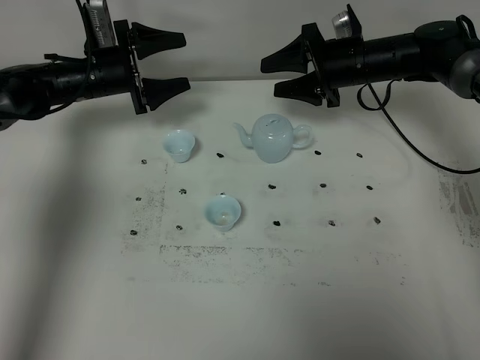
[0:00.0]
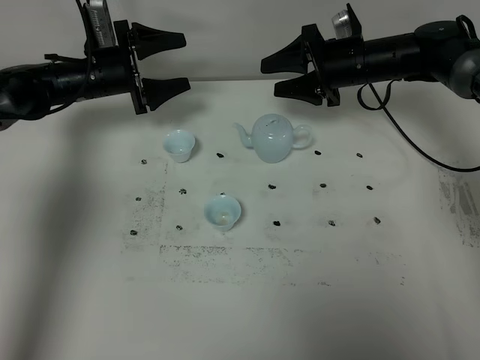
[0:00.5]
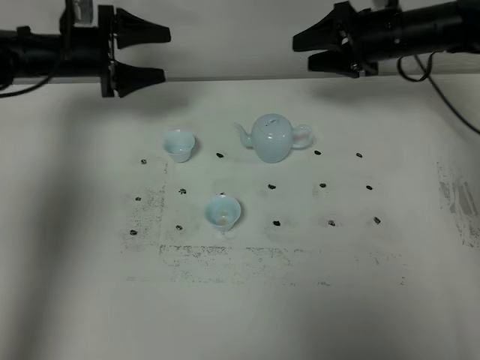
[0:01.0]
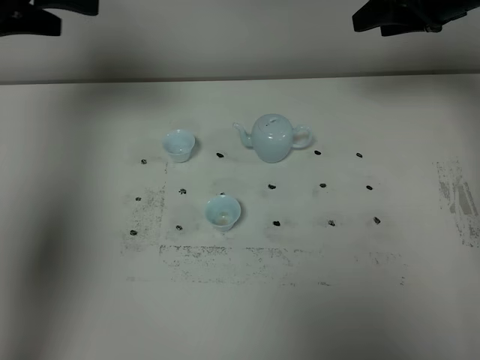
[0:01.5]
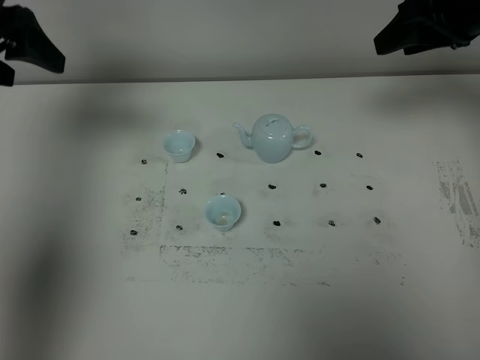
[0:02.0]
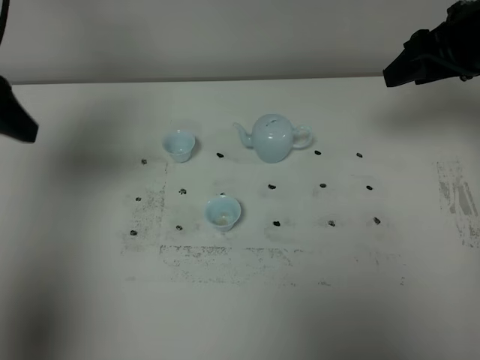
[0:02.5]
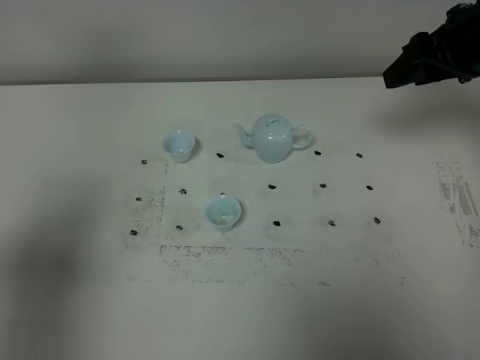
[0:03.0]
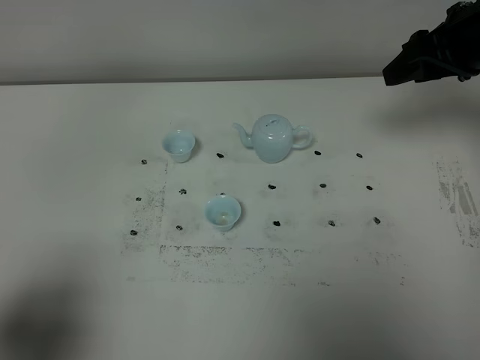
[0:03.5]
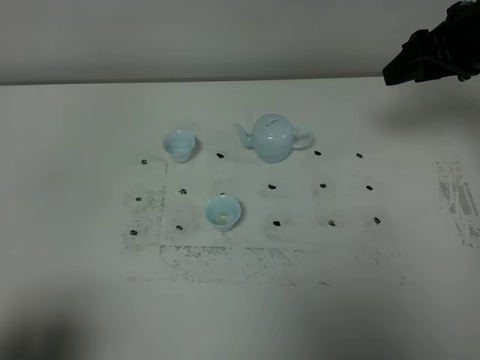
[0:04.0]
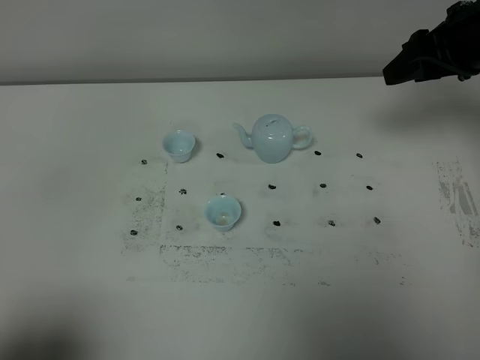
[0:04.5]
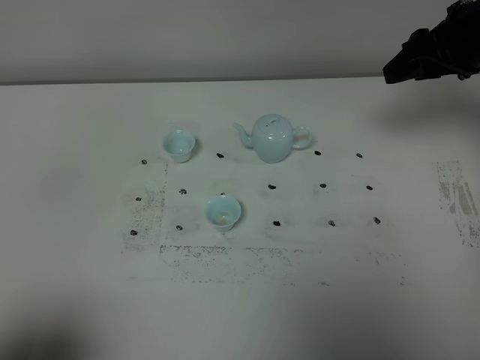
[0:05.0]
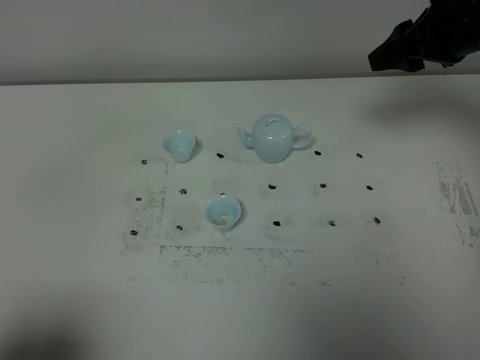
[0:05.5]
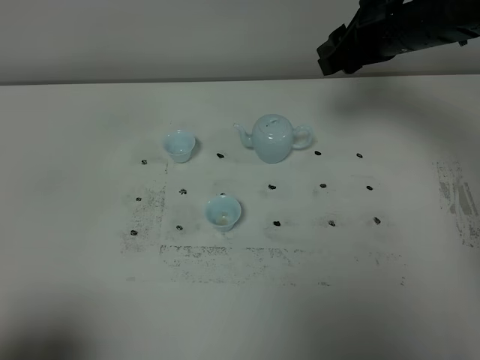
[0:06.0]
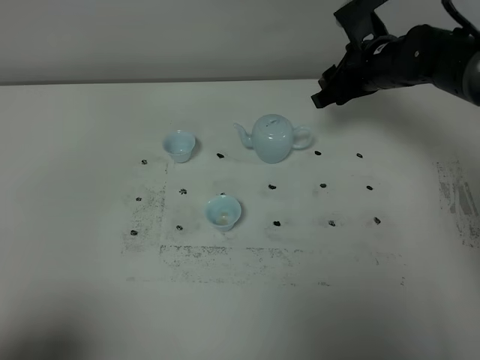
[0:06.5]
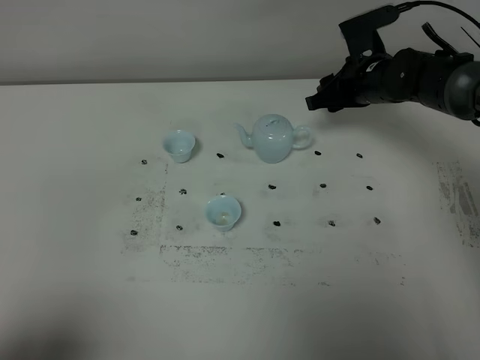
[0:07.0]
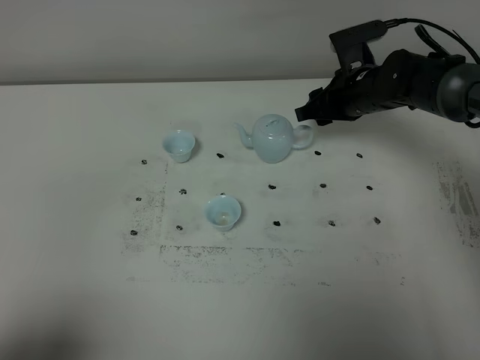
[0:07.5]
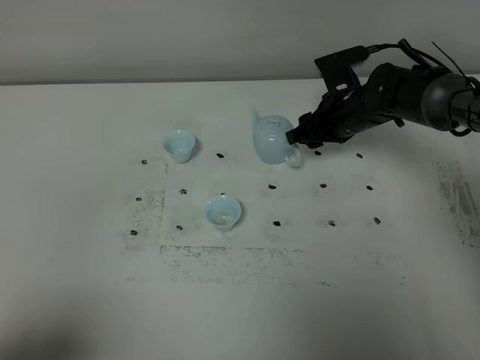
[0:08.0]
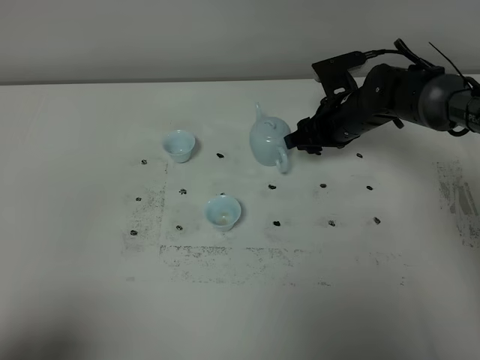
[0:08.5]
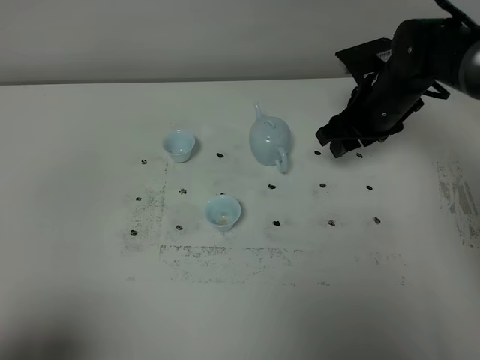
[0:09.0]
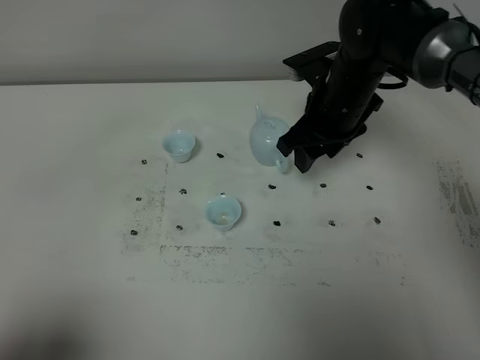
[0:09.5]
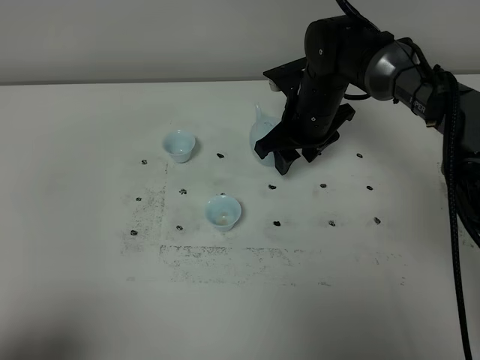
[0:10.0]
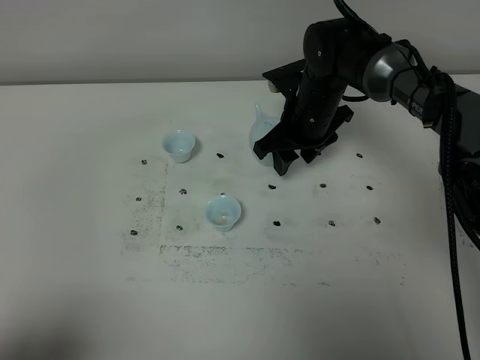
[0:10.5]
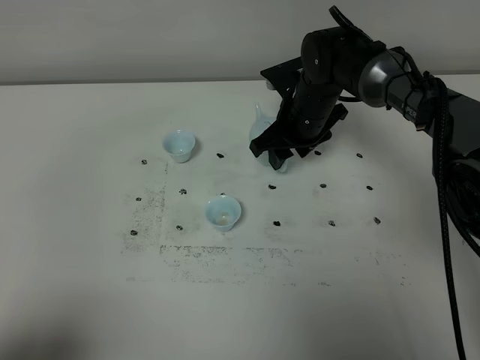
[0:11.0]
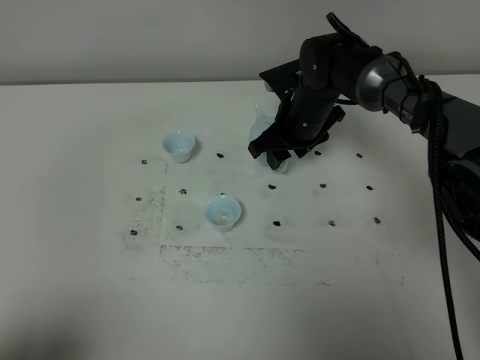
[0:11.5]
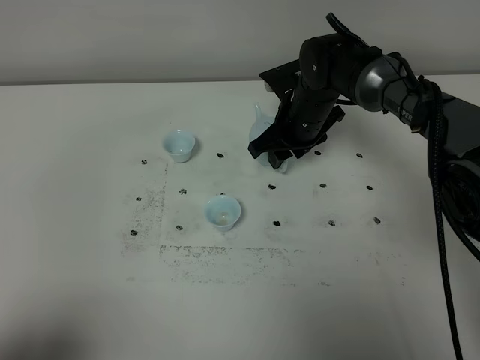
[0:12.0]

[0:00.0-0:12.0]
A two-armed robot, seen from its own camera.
Task of the whole recording: grasp the blue porcelain teapot and pour the tea into the two blue porcelain teacups one by one, put the blue porcelain teapot back in its original place.
0:00.0 to 0:02.0: The left gripper shifts some 25 cm upward and backward. Meanwhile the right gripper travels upward, backward and to the right by roughly 20 cm.
0:02.0 to 0:04.0: The left gripper moves backward, approximately 40 cm, and closes its fingers.
0:04.0 to 0:06.0: The right gripper moves to the left, some 10 cm.
0:06.0 to 0:08.0: The right gripper goes some 15 cm downward.
0:08.0 to 0:10.0: The right gripper goes about 5 cm to the left.
0:10.0 to 0:12.0: There are only small adjustments of the grippers.

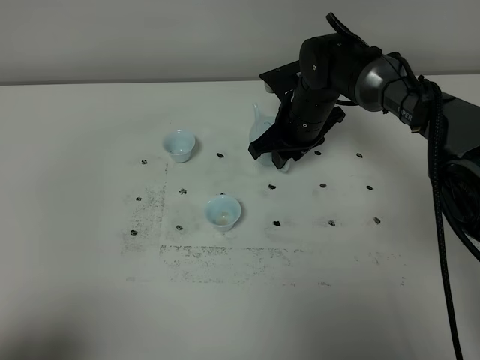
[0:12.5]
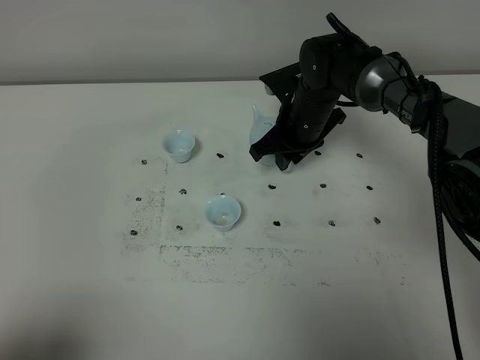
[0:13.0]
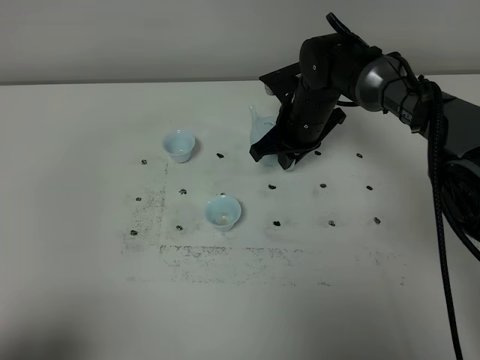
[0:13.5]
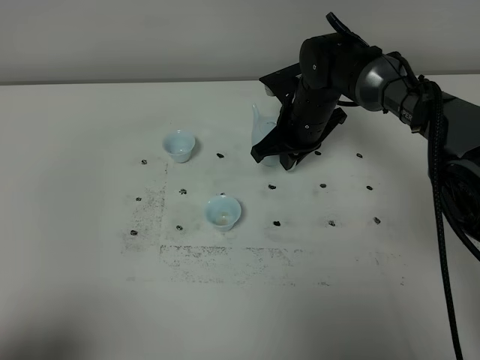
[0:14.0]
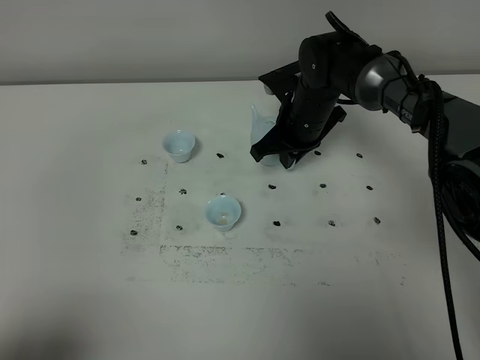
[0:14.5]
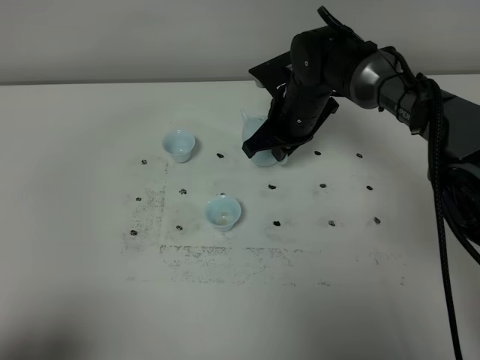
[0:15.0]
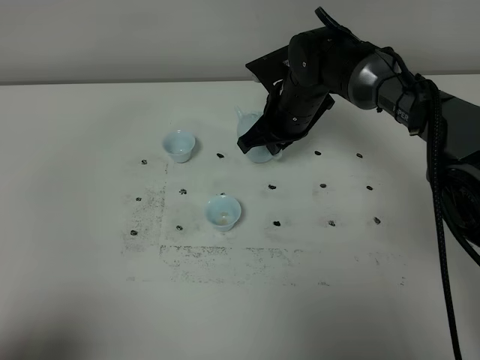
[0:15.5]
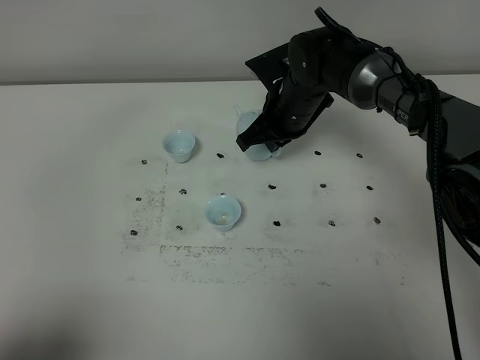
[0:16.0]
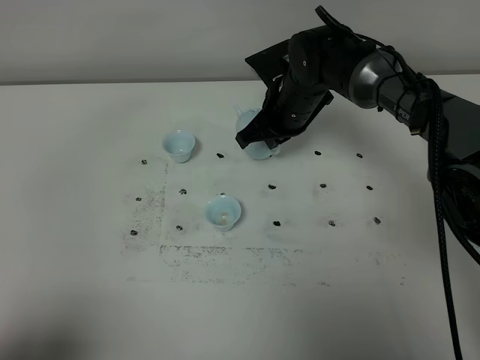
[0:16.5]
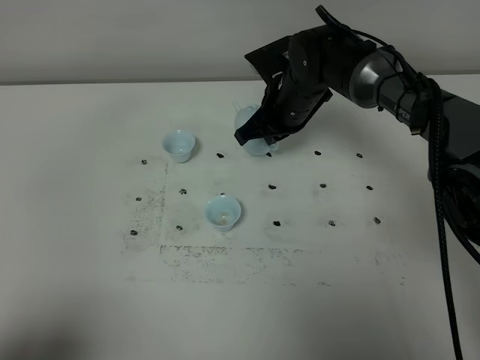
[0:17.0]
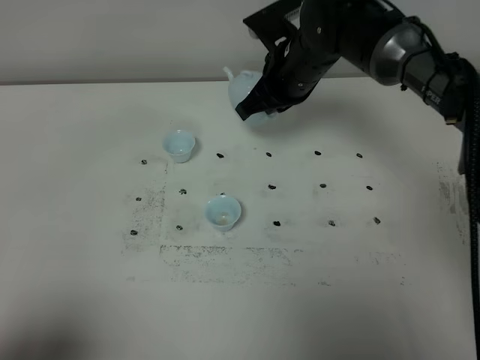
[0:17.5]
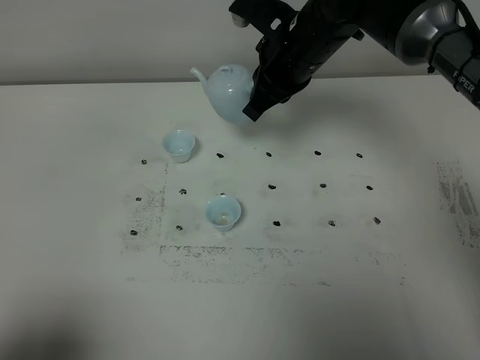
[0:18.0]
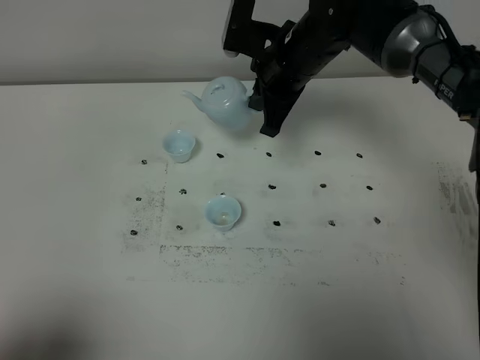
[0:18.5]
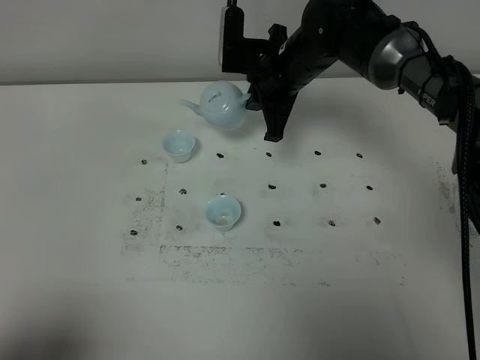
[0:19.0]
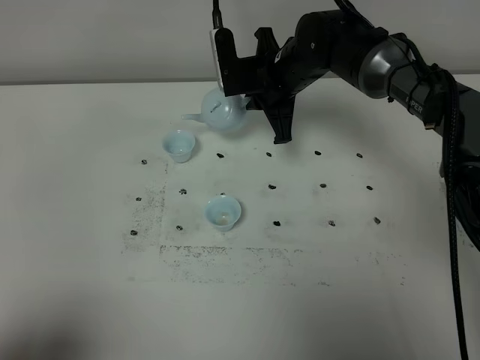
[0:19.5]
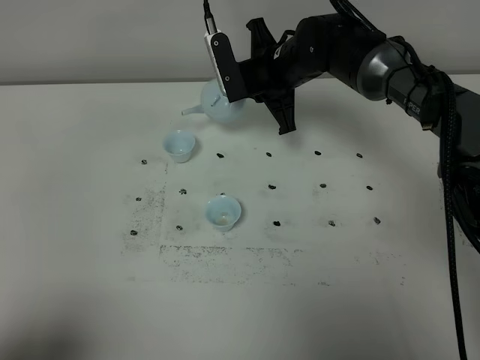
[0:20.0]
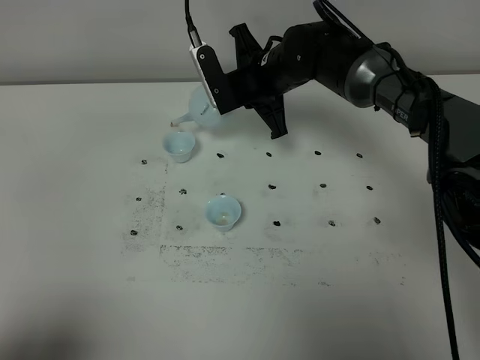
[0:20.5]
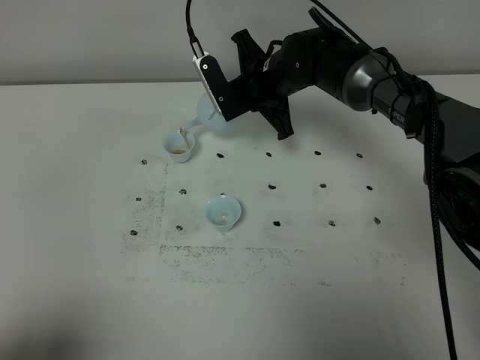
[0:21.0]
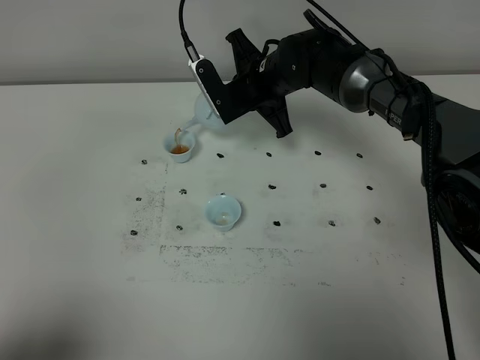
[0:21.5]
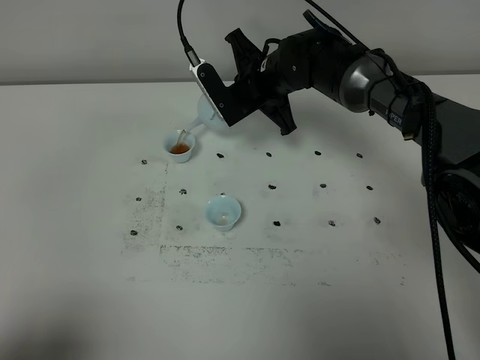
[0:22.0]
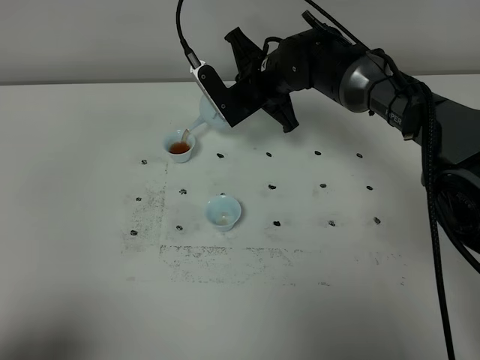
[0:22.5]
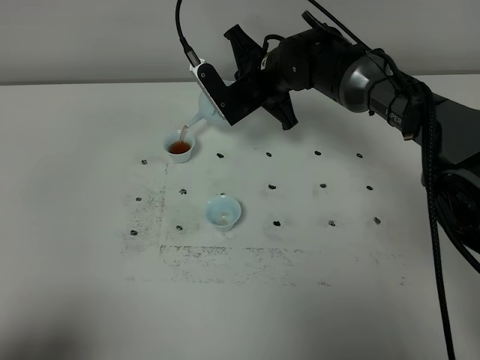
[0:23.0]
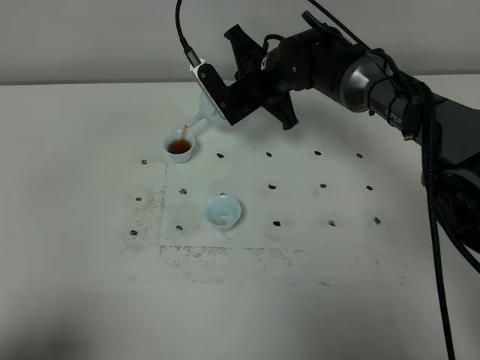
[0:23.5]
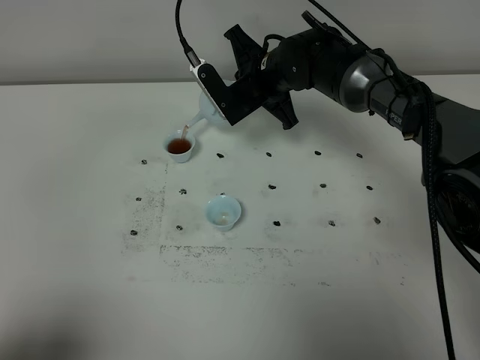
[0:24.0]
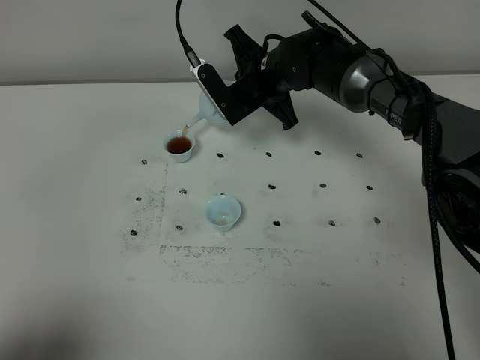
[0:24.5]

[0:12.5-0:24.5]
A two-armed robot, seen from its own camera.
Task of the whole recording: grasp the blue porcelain teapot and pour the tea into the two blue porcelain teacups one by one, put the blue porcelain teapot back in its original place.
Step, 0:12.5 to 0:17.0: Pick up the teapot with the right gripper.
0:12.5 to 0:14.5: The right gripper closes up.
0:14.5 to 0:16.5: The grippers move only a little.
0:16.5 to 0:18.5: The right gripper moves upward, roughly 10 cm.
0:18.5 to 0:20.5: The right gripper moves roughly 5 cm.
0:20.5 to 0:22.5: The grippers make only small movements.
0:22.5 to 0:24.5: Both grippers stay put.

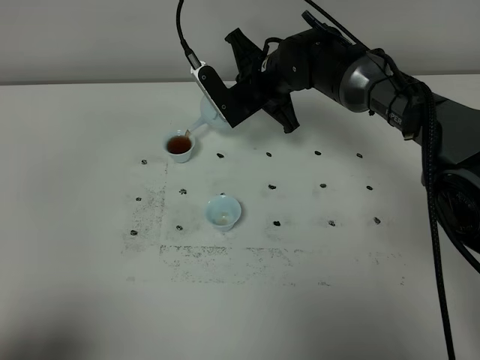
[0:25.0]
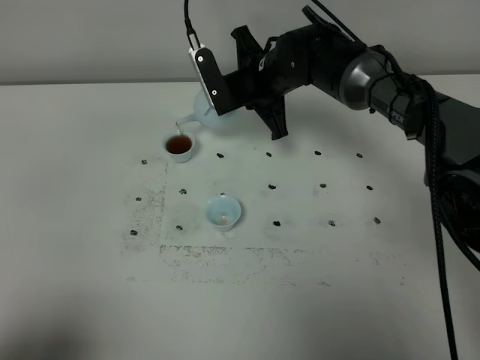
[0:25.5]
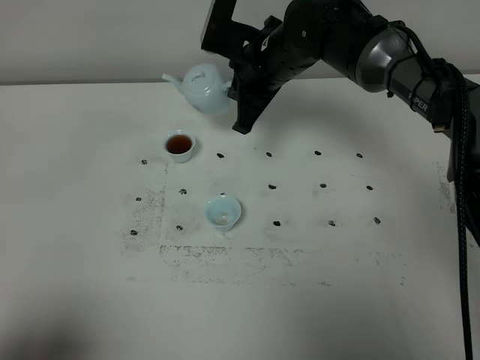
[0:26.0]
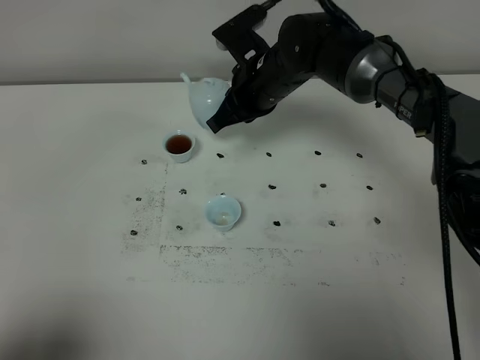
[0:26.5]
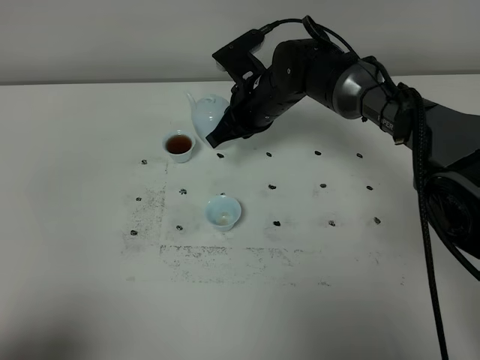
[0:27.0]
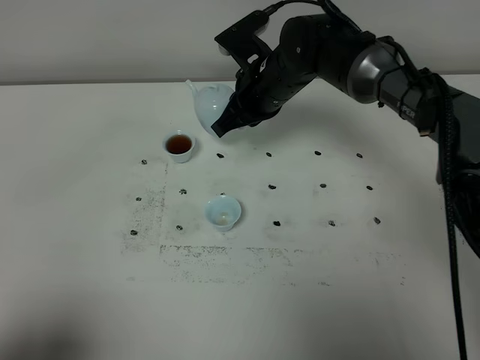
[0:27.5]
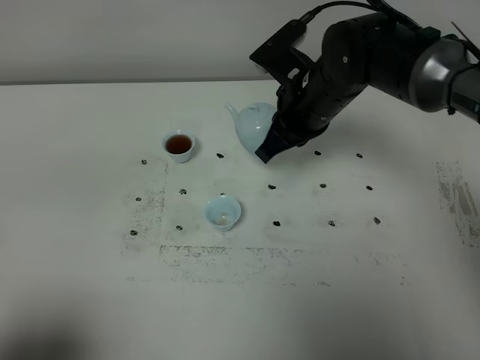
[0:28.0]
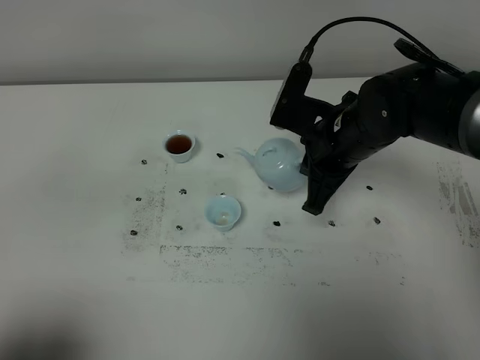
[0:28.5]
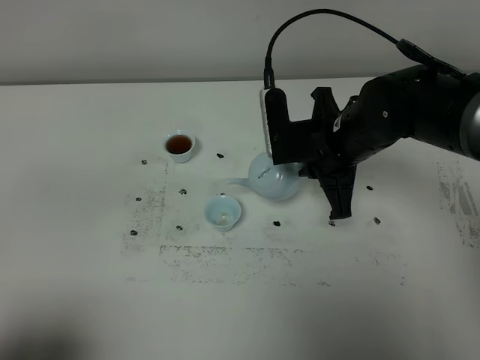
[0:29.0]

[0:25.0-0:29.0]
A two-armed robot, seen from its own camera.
Task of the whole recording: grasp the blue porcelain teapot and pour the tea into the two blue porcelain teacups one by one, put the blue porcelain teapot back in its original place.
0:27.0 to 0:29.0: The right gripper moves backward and to the right, roughly 15 cm.
